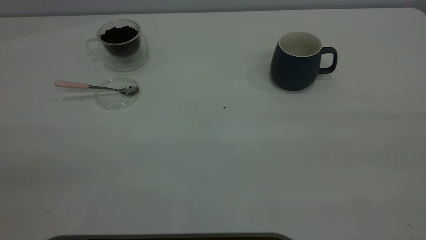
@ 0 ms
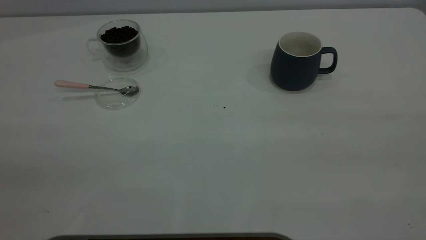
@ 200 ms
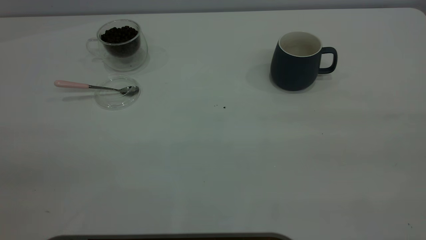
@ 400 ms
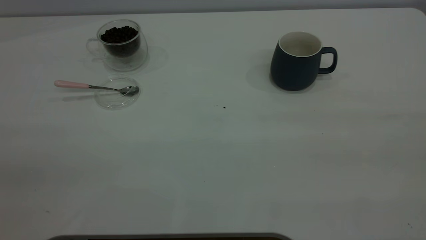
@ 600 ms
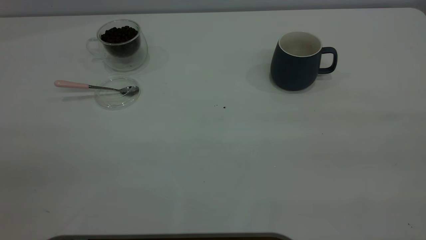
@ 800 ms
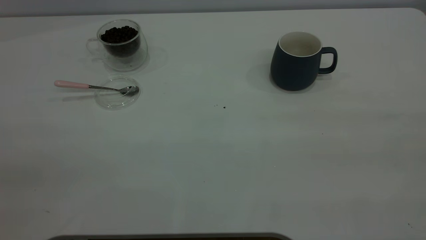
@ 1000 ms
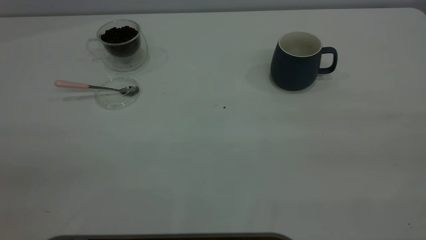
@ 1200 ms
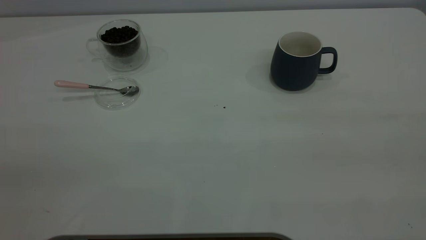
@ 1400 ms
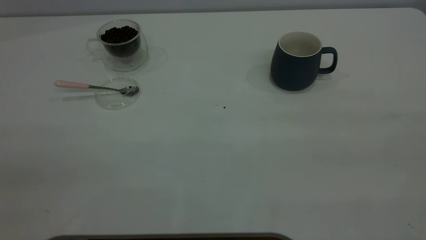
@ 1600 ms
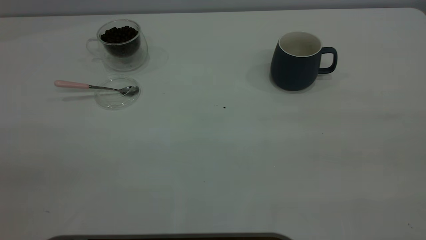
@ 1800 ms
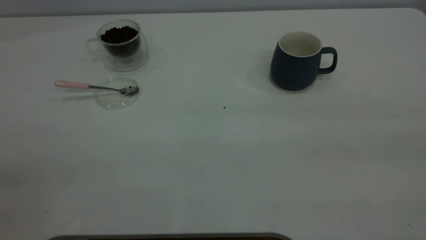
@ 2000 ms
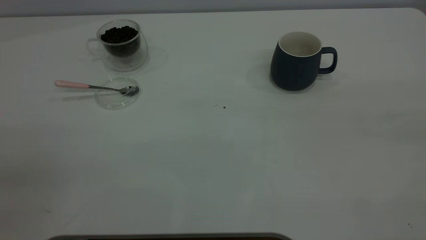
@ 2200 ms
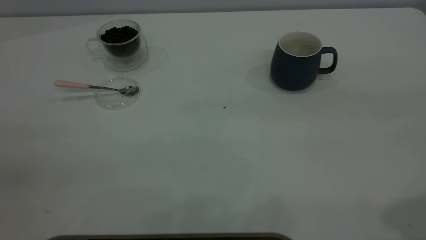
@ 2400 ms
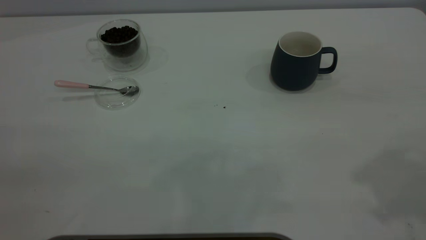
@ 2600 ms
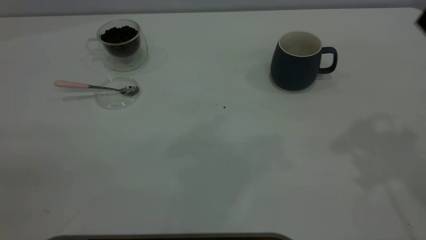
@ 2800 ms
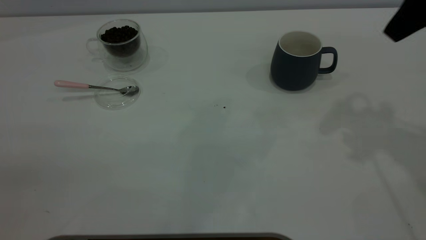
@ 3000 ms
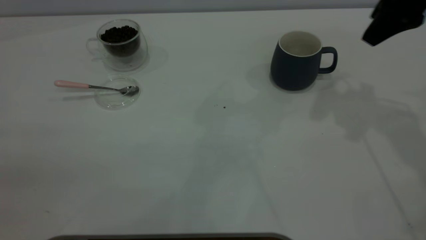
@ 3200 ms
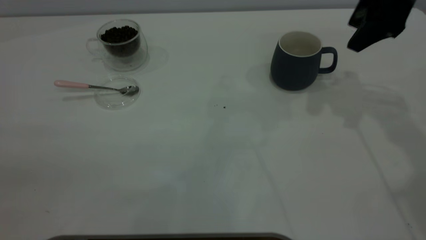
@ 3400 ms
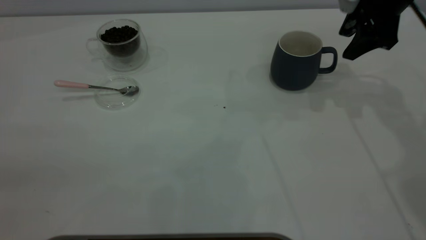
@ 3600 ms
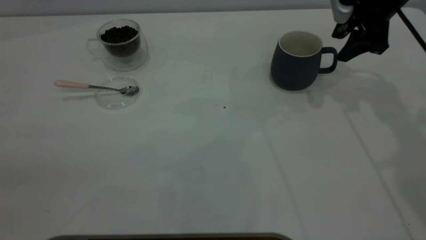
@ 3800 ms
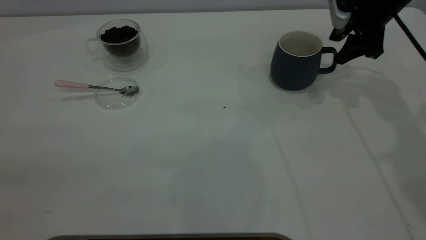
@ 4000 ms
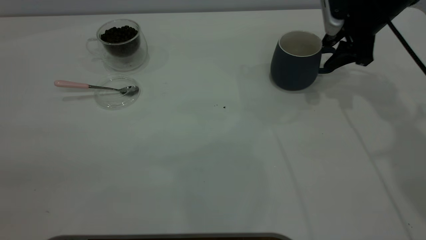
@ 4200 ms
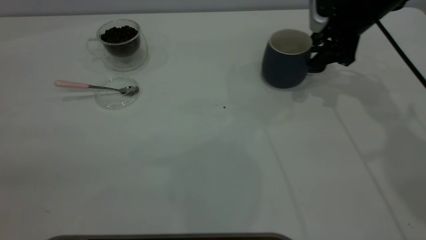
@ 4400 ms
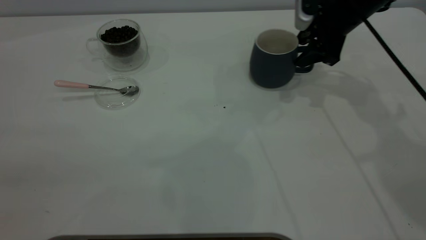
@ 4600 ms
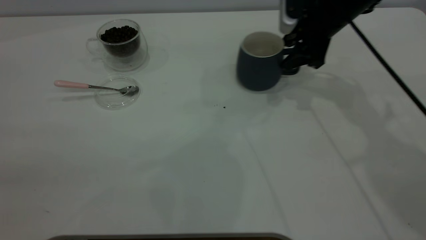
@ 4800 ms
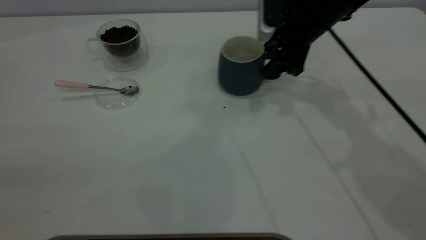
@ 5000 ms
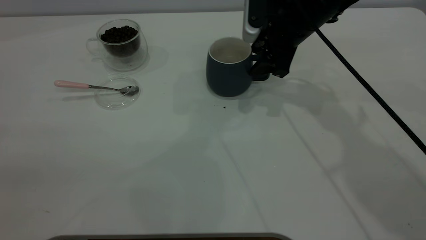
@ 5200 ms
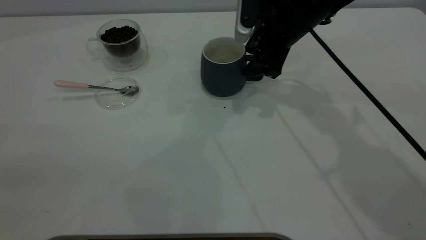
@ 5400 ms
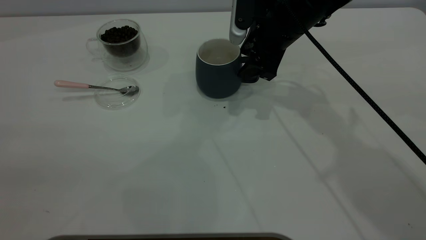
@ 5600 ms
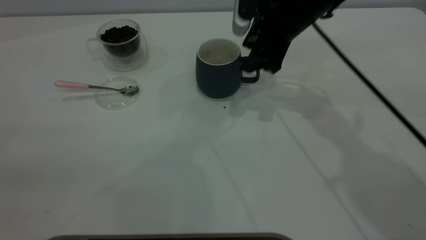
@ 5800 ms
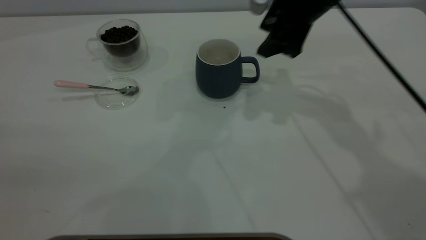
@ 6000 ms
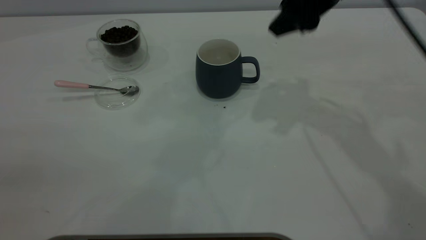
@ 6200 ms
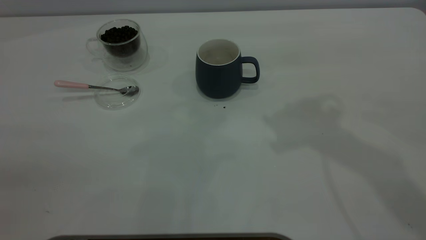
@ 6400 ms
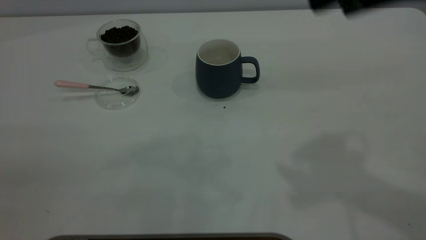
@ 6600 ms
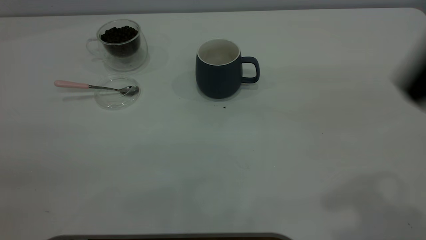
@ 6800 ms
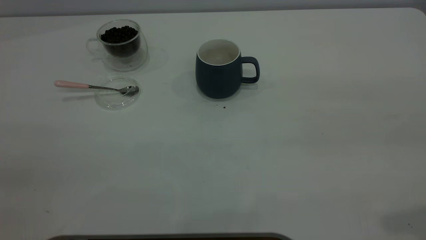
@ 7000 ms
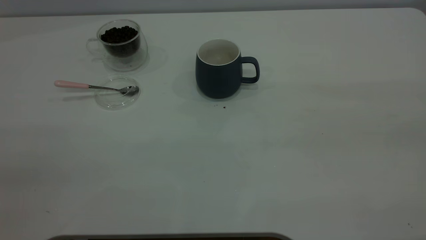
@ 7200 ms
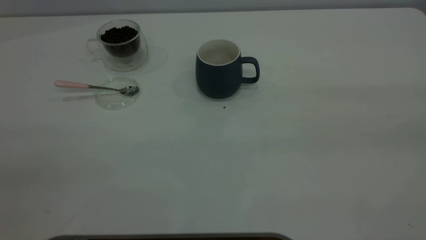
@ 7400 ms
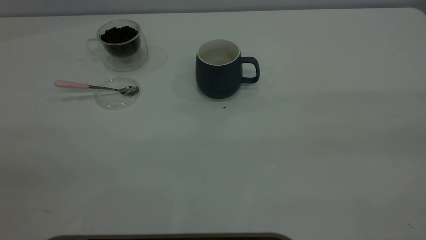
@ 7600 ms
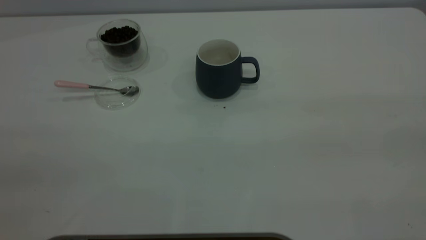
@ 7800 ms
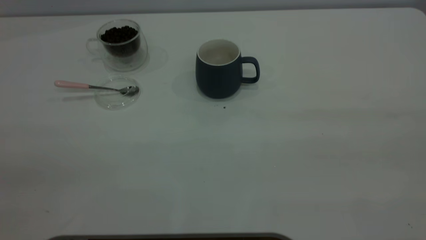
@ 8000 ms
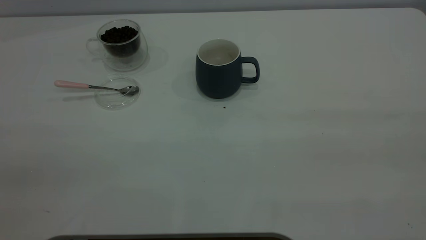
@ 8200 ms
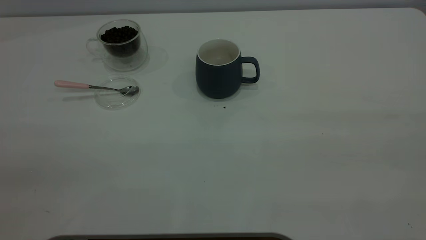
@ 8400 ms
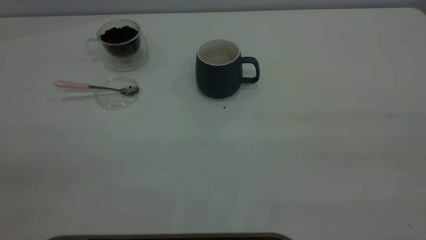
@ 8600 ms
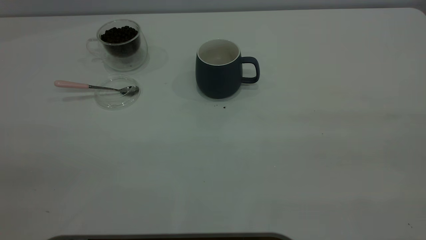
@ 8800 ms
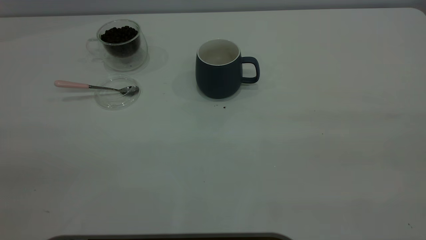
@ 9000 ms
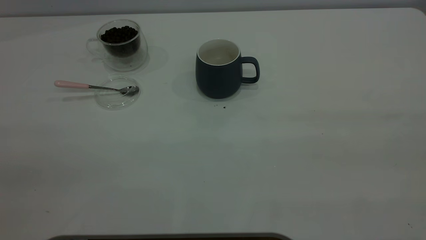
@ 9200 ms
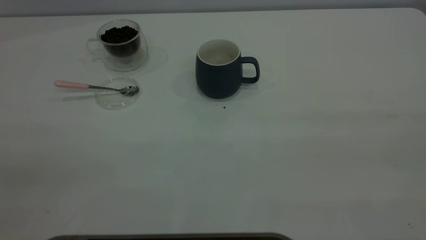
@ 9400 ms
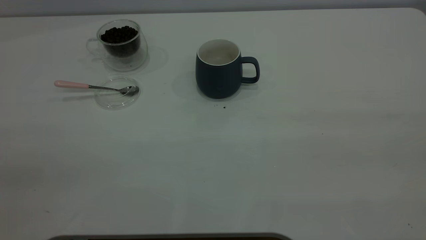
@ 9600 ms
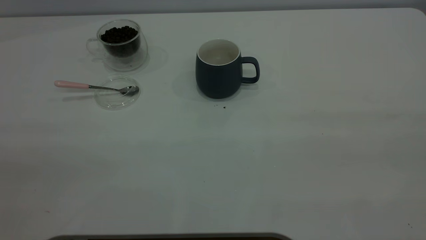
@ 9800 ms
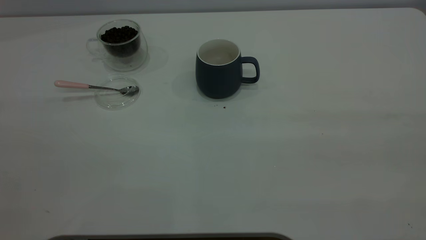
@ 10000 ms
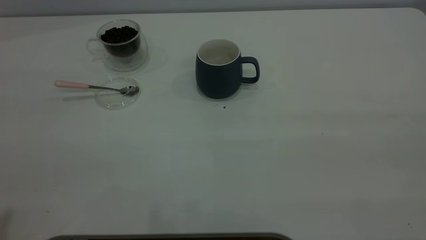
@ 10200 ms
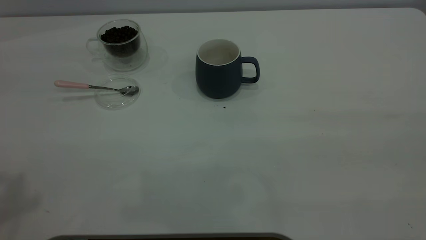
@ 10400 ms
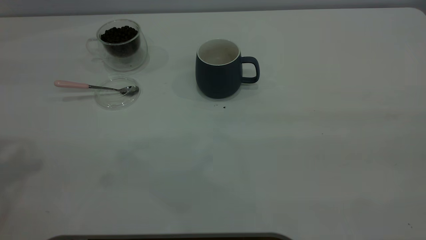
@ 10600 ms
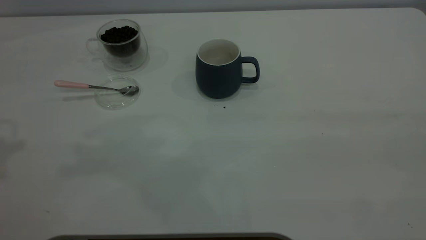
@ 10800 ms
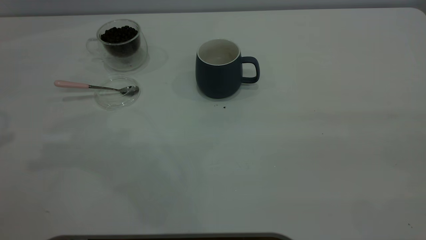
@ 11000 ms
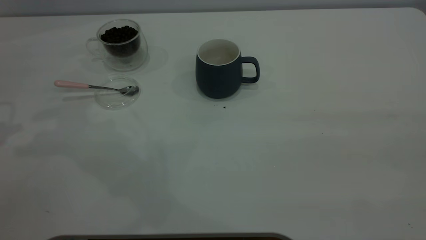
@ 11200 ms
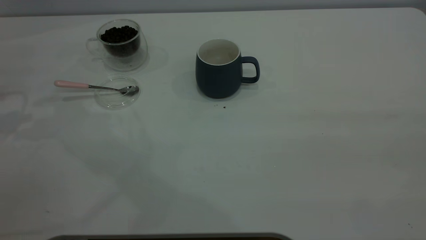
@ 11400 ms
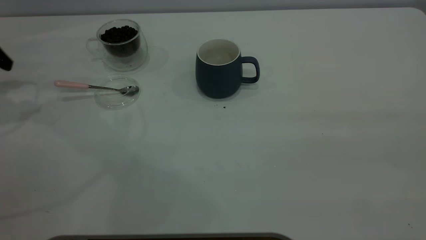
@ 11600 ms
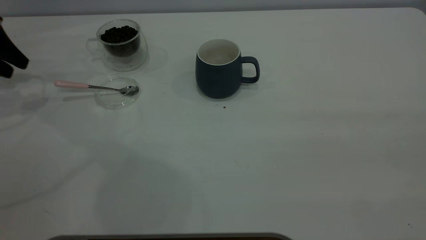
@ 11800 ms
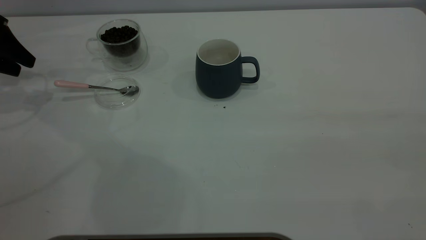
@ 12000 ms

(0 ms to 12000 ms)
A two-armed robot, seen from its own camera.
Task of the whole recording: the right gripper place the grey cup in the center of the table, the left gripper take the pink spoon from the cup lid and scoop out the coffee beans from the coffee cup and put them into the grey cup, the left gripper put the spoon back into the cup lid.
Step, 0 ms - 6000 ms: Move the cup to the center of view.
0 ms - 1600 ms: The two grippers keep their place.
1600 ms - 3000 ms: The right gripper goes roughly 35 cm forward, and opens up.
3000 ms - 4400 ms: The right gripper moves downward and forward, roughly 20 cm.
4400 ms - 6000 ms: The right gripper moves to the left, upward and backward, approximately 10 cm.
6000 ms - 7600 ms: The right gripper heads backward, upward and to the right, covering approximately 50 cm.
10400 ms - 12000 ms: The left gripper shifts about 35 cm downward, forward and to the left.

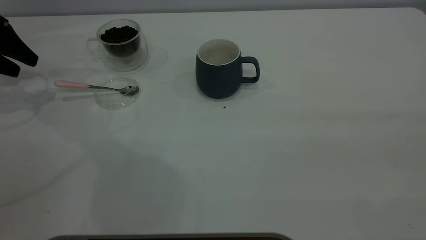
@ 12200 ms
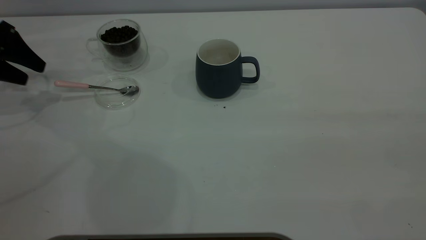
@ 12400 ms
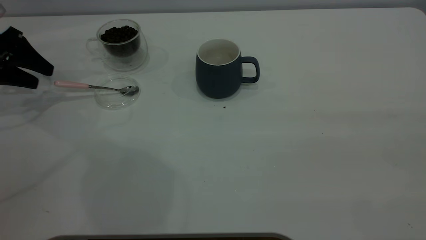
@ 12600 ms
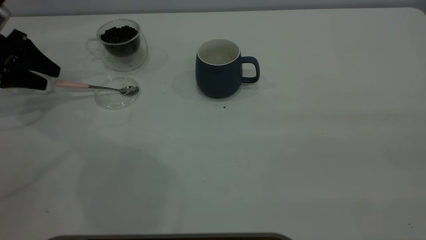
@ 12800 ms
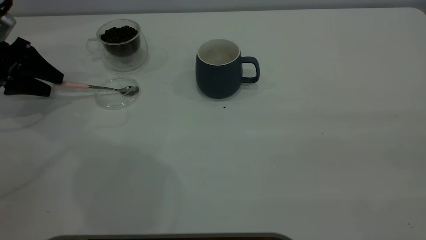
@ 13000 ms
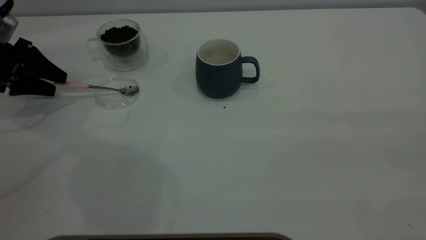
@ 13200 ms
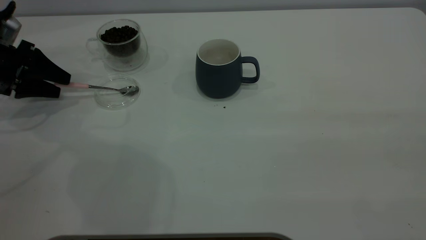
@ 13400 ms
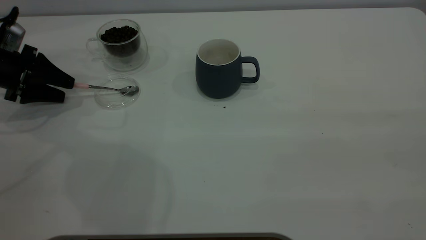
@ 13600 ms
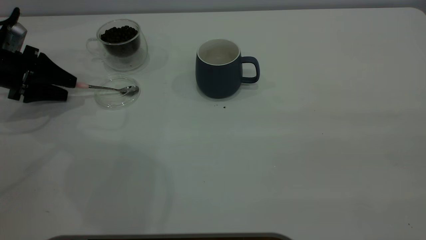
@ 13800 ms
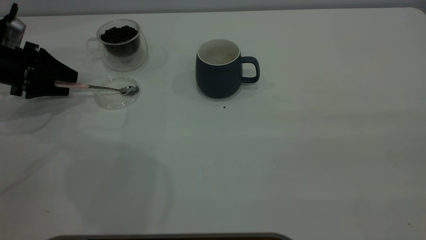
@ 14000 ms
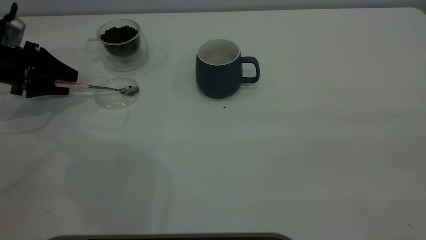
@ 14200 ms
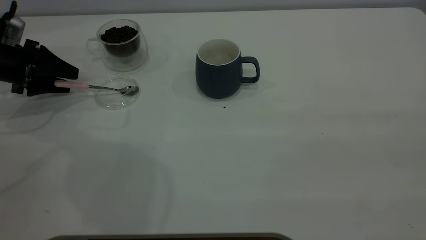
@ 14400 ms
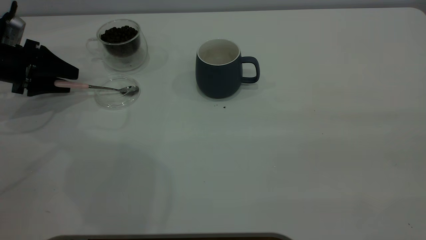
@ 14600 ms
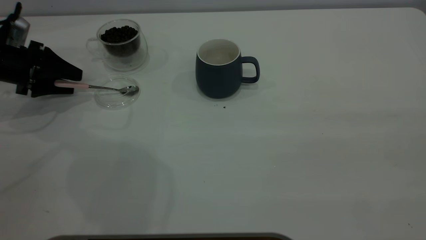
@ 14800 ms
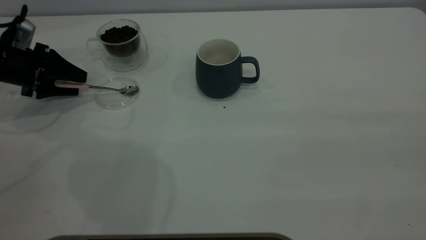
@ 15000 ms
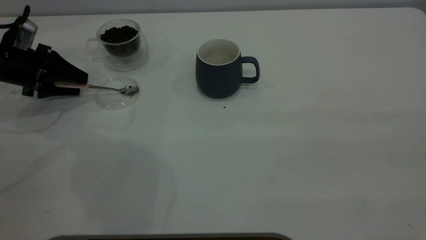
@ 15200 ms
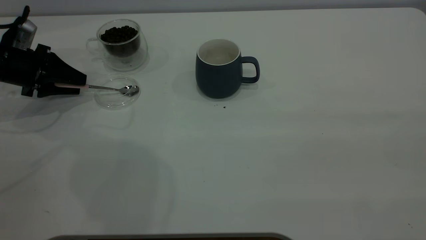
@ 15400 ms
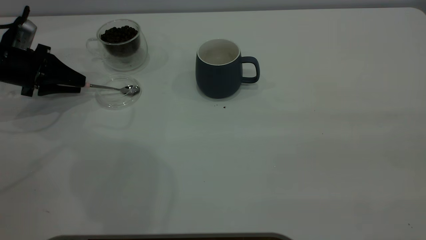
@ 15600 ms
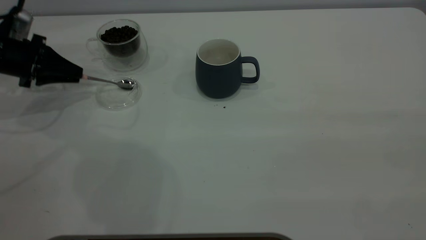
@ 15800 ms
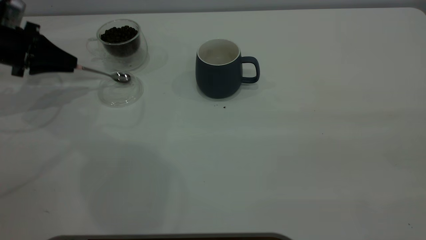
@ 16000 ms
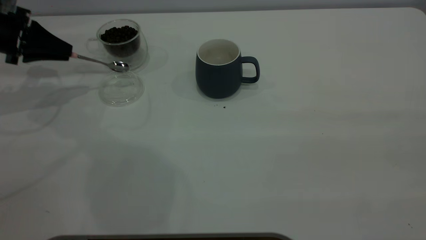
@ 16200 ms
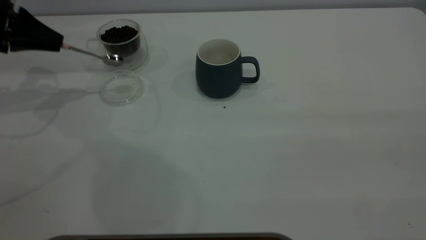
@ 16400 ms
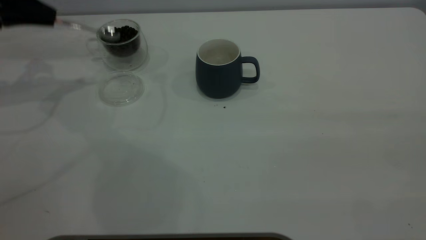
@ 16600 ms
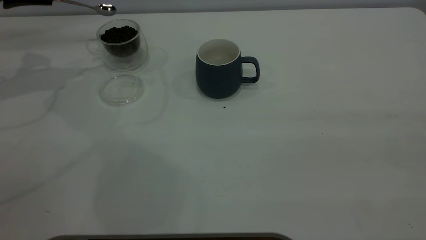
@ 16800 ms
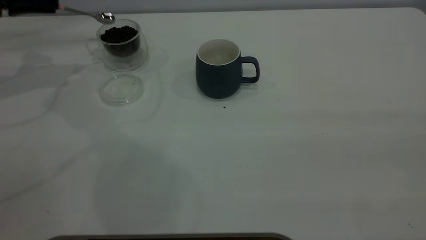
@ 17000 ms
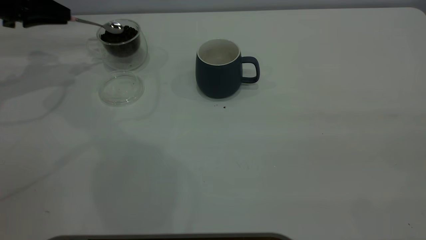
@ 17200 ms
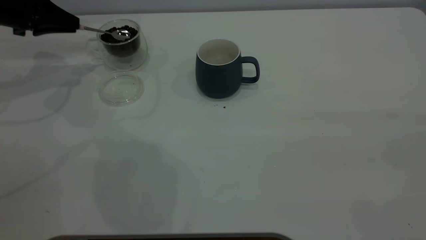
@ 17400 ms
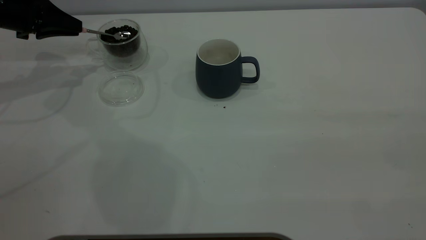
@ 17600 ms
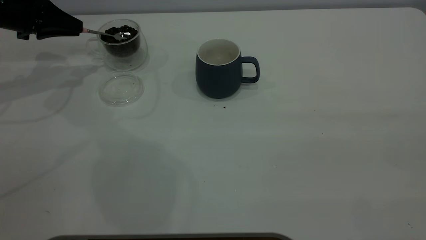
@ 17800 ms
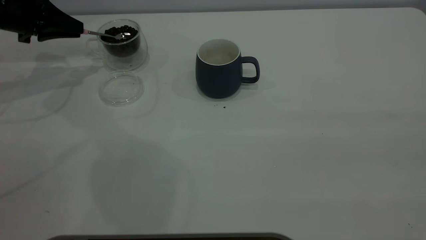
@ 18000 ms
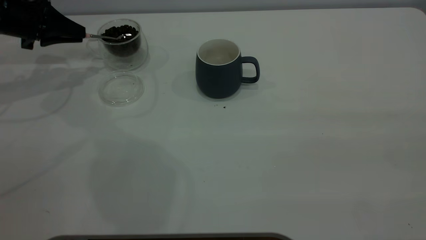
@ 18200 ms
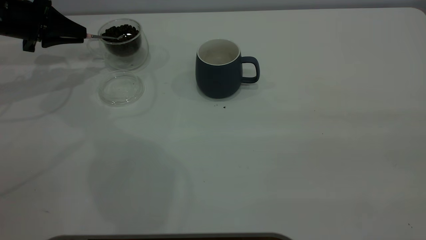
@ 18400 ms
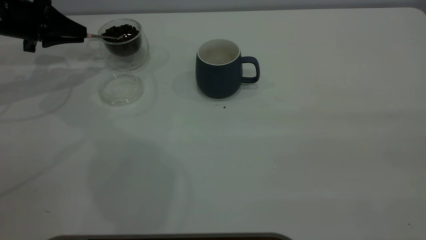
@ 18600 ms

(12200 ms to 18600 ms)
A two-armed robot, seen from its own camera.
Task of the whole recording: the right gripper place the grey cup in the center of the table, the left gripper take the pink spoon from the cup lid and scoop out the coffee beans from the coffee cup and put them into the grey cup, the left gripper put the spoon back into the cup lid.
Step, 12200 ms - 16200 ms: Pick up the spoon.
12200 ms - 13800 ms: The left gripper goes approximately 10 cm downward.
13800 ms - 15400 ms: The left gripper closes its fingers.
15400 ms - 17000 ms: The left gripper goes approximately 10 cm upward, and closes.
17000 ms - 18600 ms: The left gripper is displaced downward by some 5 cm.
